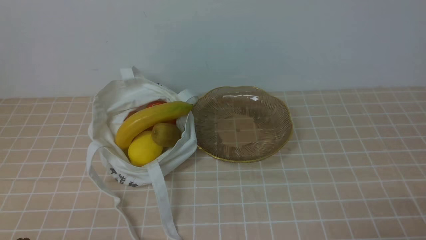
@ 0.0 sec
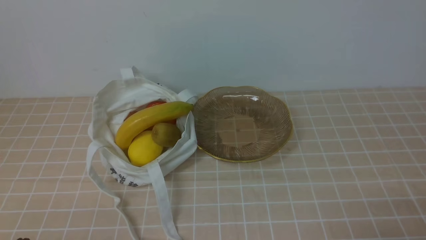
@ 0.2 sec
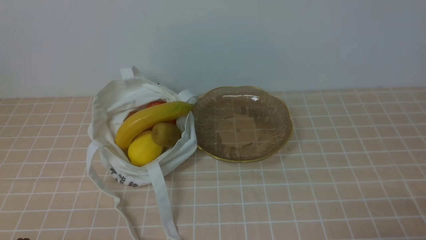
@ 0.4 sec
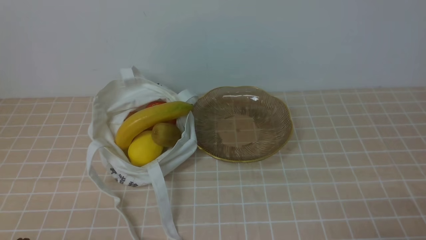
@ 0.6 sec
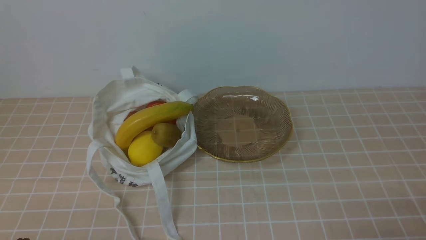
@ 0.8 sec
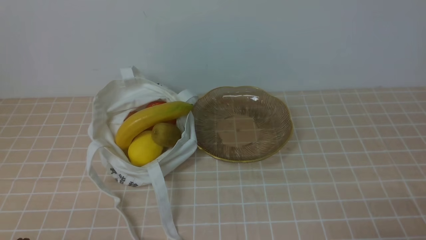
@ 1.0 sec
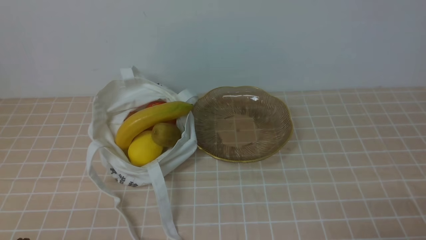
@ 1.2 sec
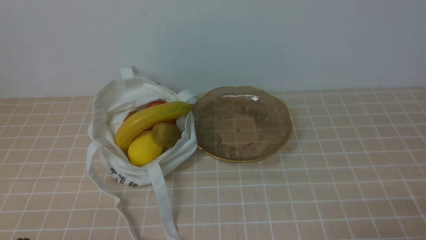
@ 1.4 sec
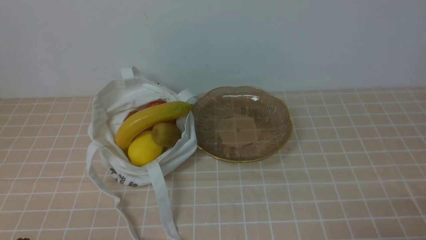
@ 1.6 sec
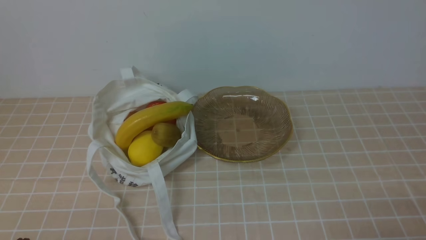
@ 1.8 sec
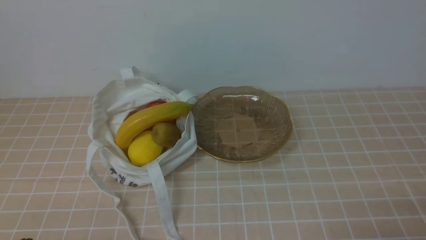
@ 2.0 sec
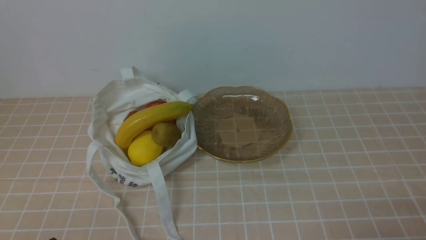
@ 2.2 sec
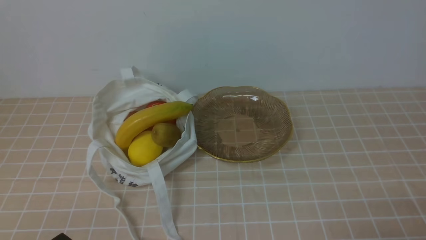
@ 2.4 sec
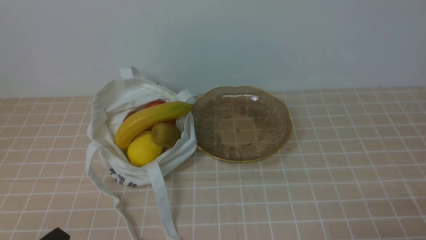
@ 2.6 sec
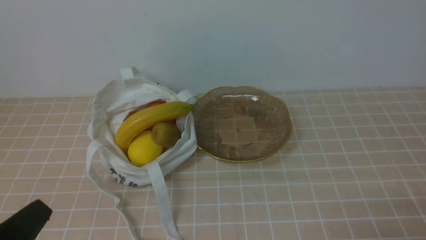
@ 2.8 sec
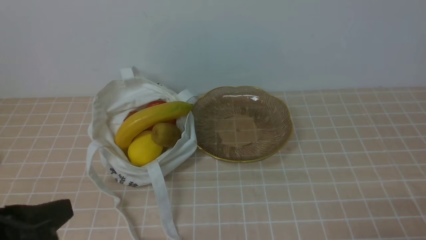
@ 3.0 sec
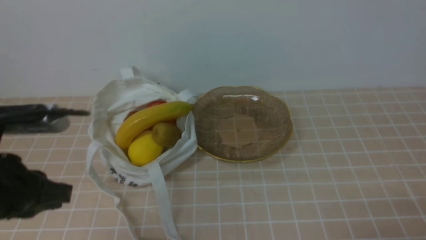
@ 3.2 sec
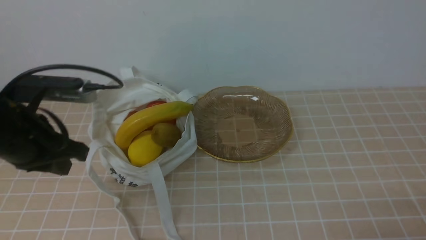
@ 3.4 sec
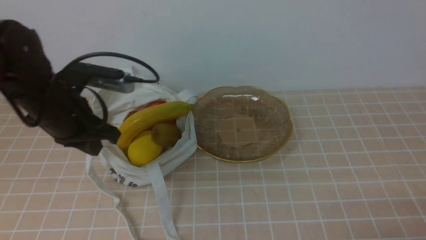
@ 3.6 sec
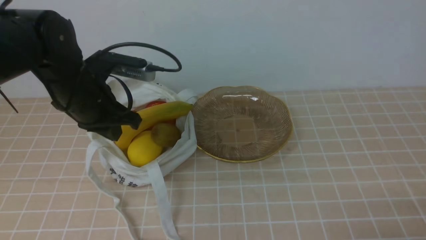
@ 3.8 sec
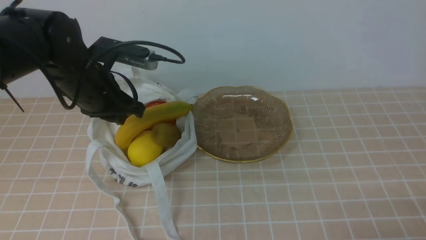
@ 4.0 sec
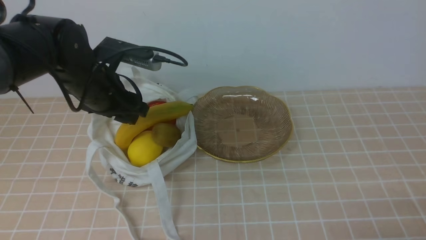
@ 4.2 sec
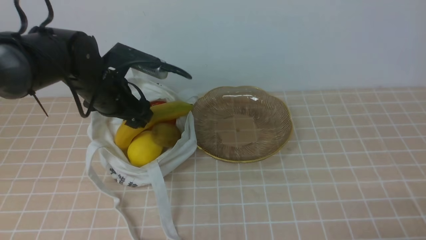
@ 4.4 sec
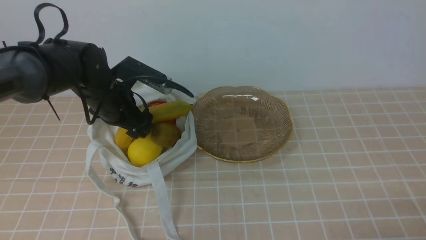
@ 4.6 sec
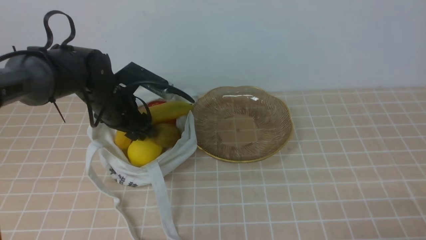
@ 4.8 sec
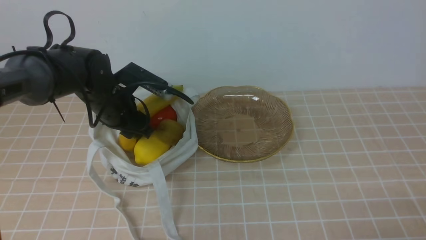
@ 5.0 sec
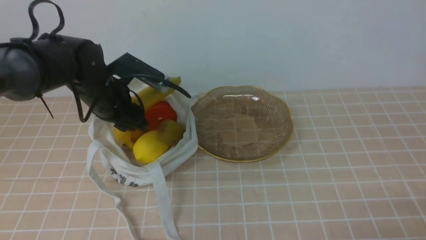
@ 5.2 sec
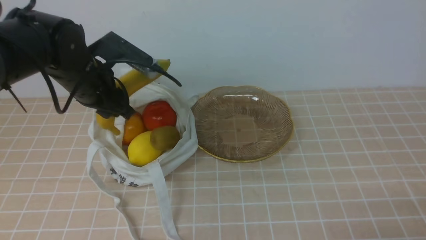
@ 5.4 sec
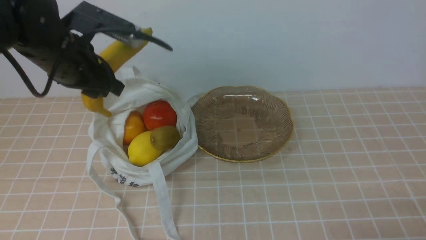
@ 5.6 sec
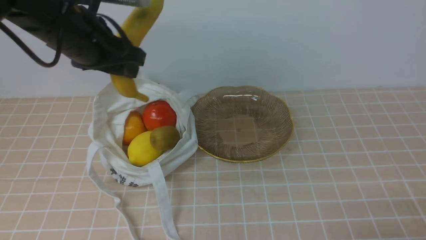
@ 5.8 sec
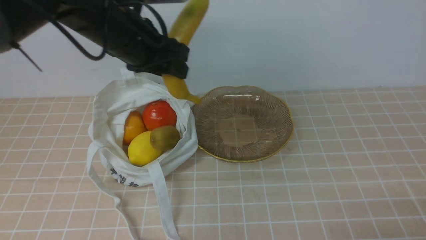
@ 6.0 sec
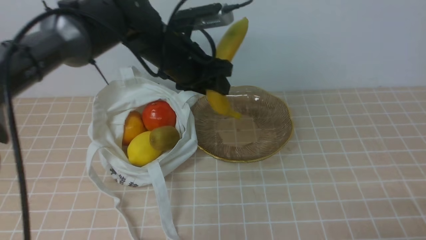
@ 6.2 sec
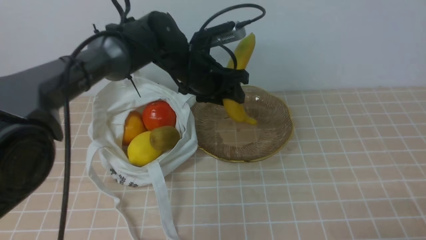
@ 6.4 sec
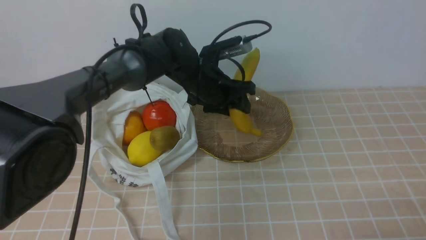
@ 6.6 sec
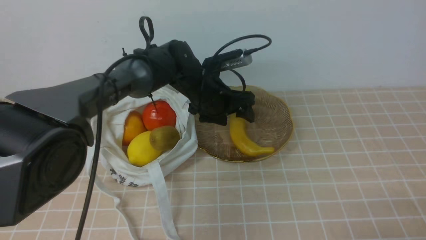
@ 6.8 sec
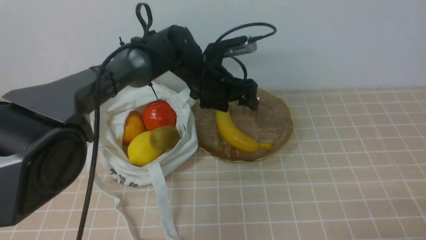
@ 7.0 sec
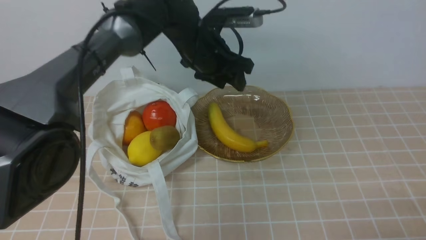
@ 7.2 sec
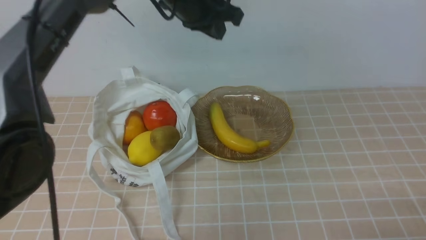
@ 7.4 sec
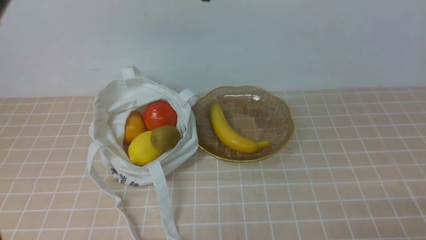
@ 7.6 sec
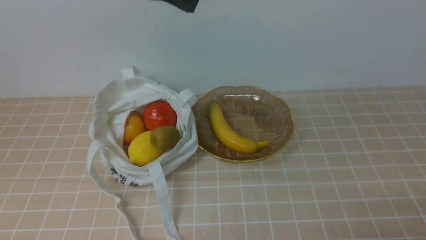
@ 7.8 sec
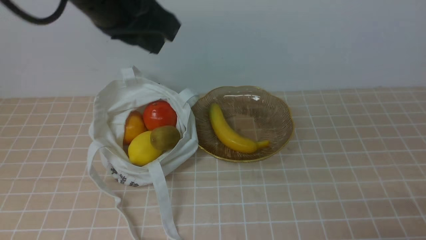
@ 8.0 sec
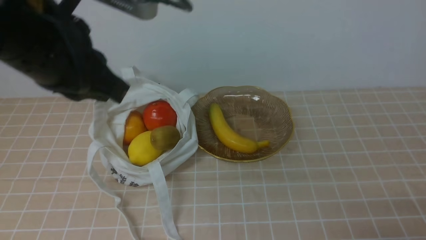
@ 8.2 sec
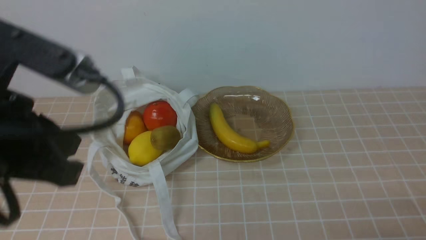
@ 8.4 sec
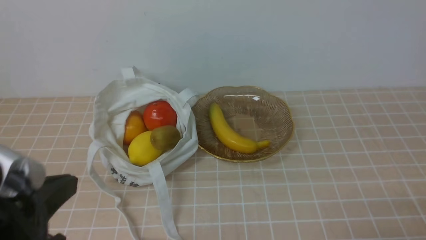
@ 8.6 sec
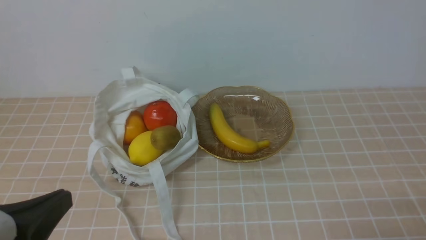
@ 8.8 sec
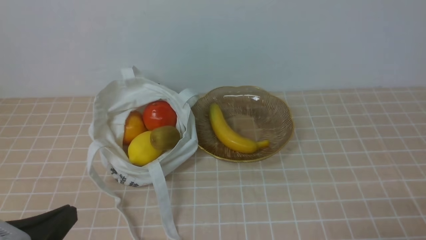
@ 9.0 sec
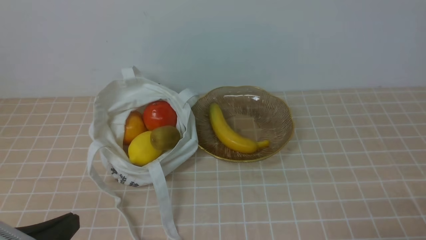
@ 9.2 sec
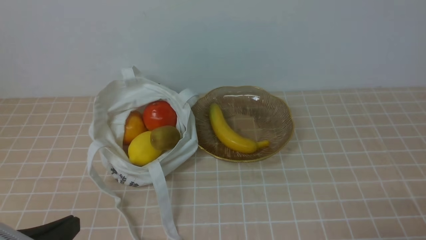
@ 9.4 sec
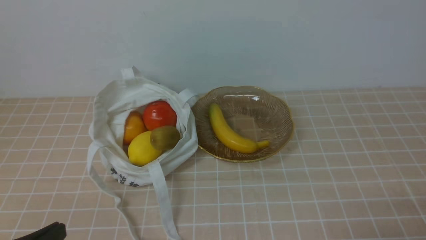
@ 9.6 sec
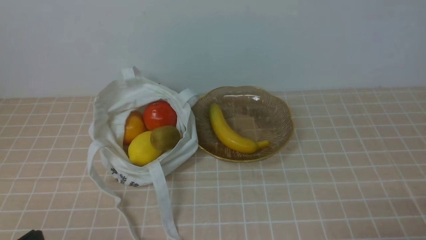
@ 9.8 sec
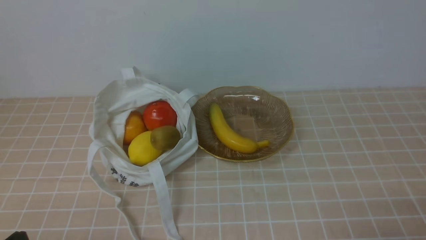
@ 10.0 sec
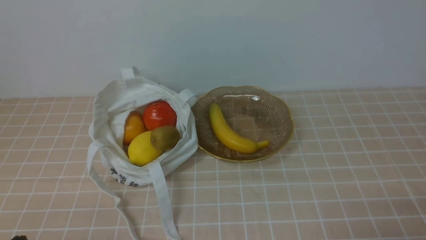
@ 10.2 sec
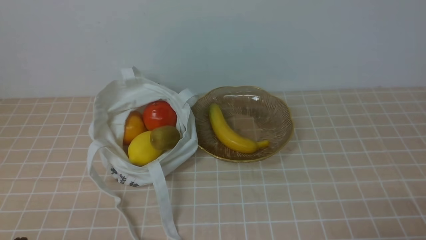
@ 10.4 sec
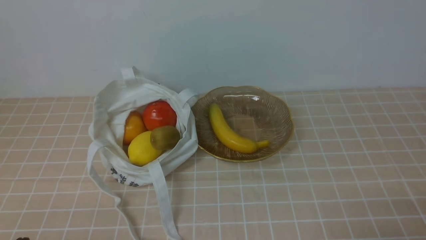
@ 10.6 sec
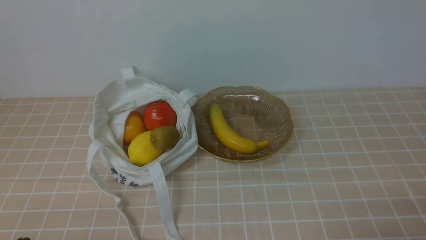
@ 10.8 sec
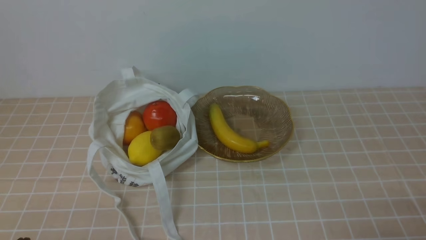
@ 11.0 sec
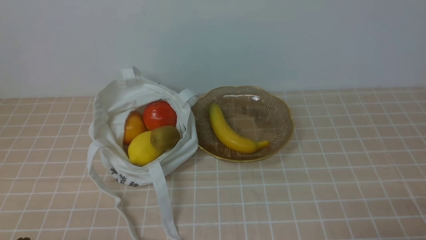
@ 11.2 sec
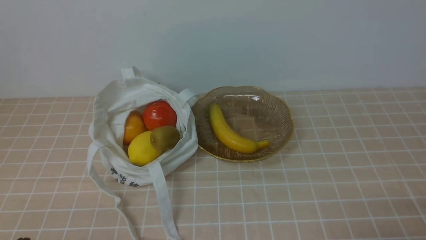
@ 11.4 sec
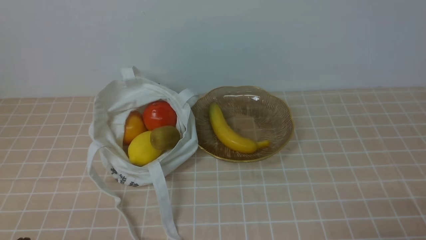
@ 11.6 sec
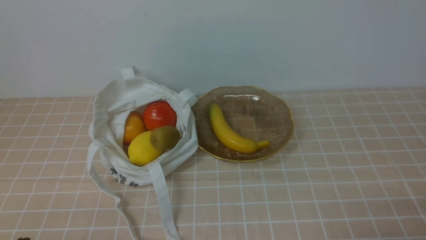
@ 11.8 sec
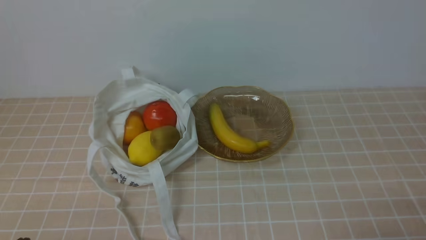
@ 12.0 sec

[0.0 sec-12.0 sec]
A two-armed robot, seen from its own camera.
Step, 0.0 sec to 5.2 sec: use the left arm to grab a banana from the bag.
Step, 5.4 sec to 7.0 sec: use the left arm to put the banana into the empty plate on the right.
0.0 sec to 1.6 sec: Both grippers stay about where they are.
1.6 sec to 3.0 sec: The left gripper travels upward by roughly 10 cm.
3.0 sec to 4.4 sec: The left gripper shifts roughly 30 cm forward, and opens.
4.4 sec to 6.0 sec: The left gripper travels upward and to the right by about 10 cm, and closes its fingers.
6.0 sec to 7.6 sec: The left gripper travels upward by some 10 cm, and closes.
7.6 sec to 9.0 sec: The left gripper shifts roughly 40 cm backward, downward and to the left.
9.0 sec to 10.4 sec: The left gripper is displaced downward by about 5 cm.
10.4 sec to 12.0 sec: Both grippers stay about where they are.
